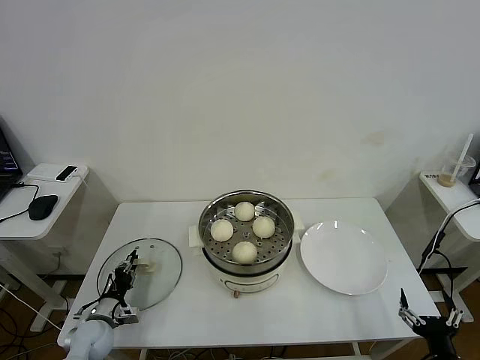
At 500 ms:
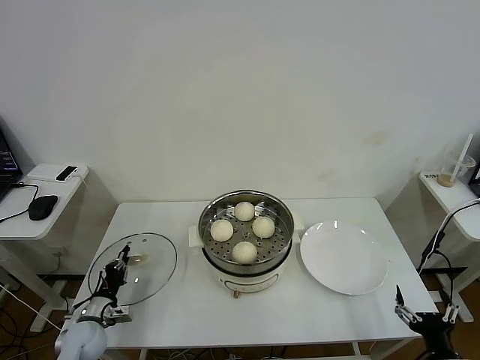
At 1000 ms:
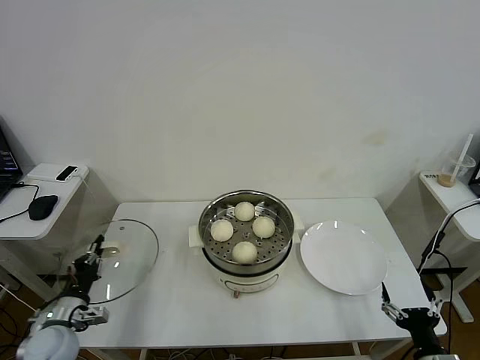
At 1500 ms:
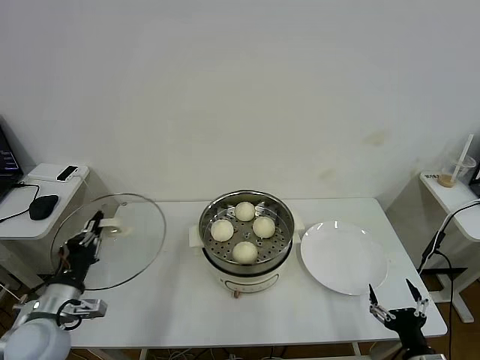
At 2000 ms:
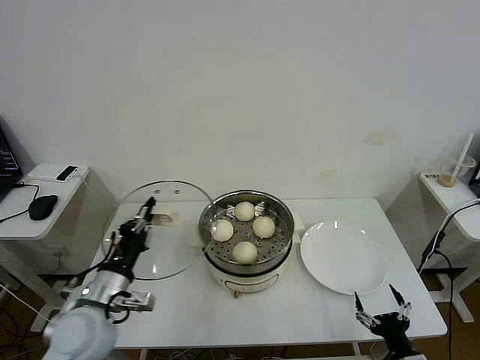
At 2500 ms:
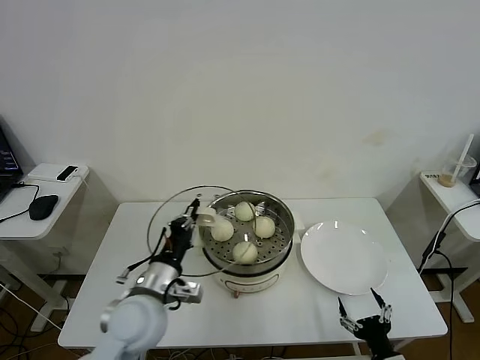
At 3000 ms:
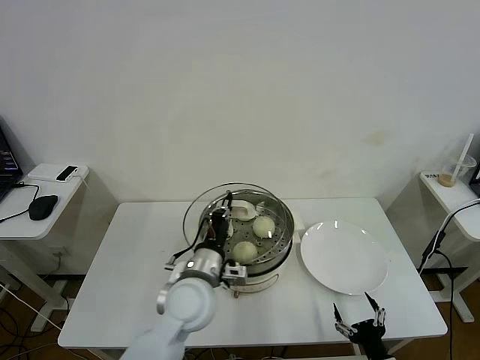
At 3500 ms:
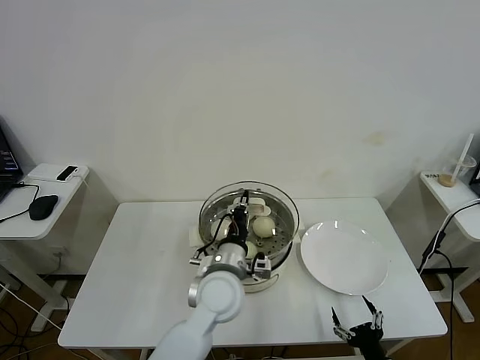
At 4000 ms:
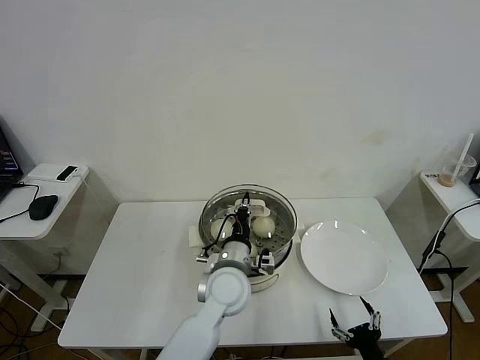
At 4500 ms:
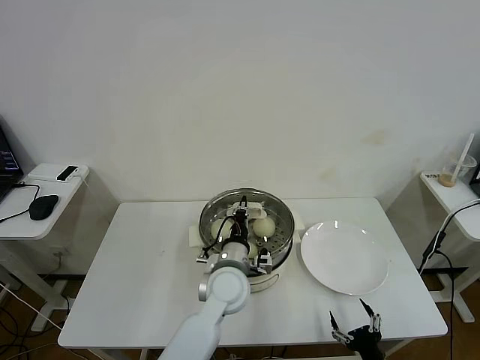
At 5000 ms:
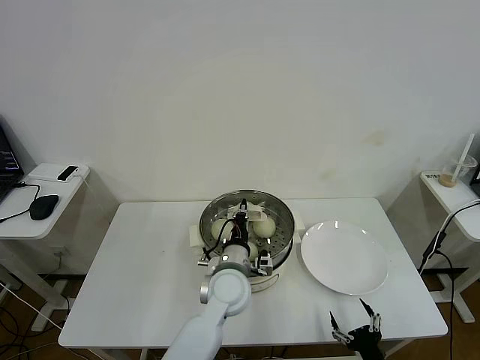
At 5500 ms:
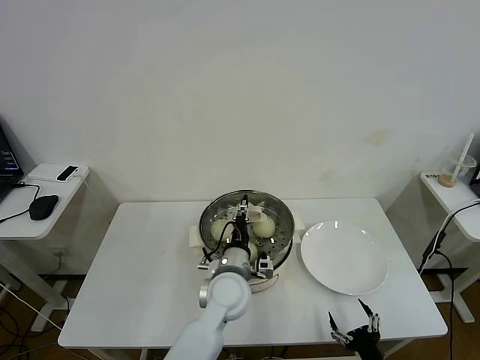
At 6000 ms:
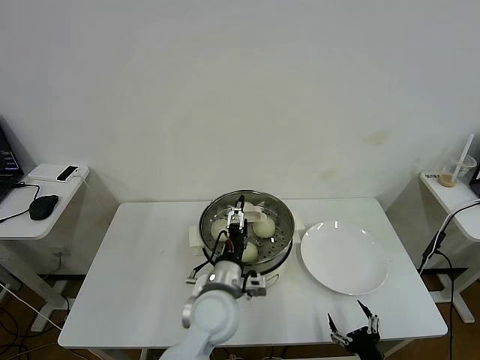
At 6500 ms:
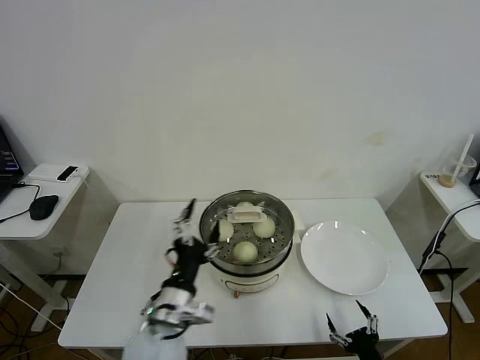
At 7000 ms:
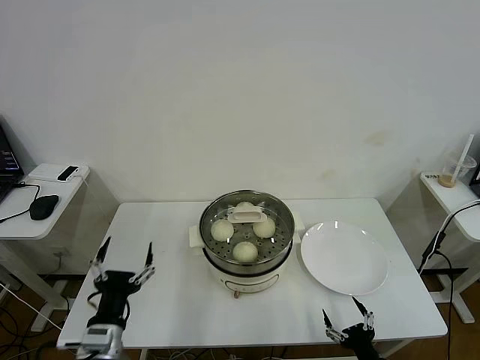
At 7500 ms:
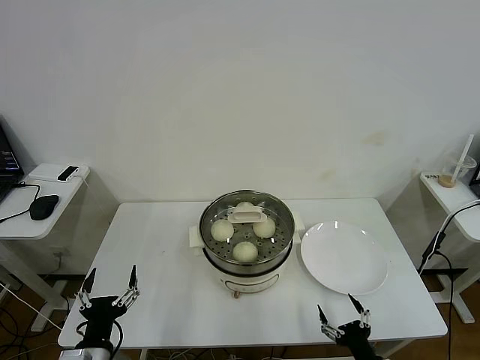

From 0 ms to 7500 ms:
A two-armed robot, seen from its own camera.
Task of the whole recording: take steamed baozi put them in steamer then cover it.
Step, from 500 ms to 6000 ms: Place the pot lid on the steamer with left gripper.
From 0 ms to 2000 ms: The left gripper travels upward and to the right by roughly 25 cm, while the right gripper changes place by some 5 cm.
From 2000 ms to 4000 ms: The left gripper travels to the right by roughly 25 cm.
From 4000 ms to 5500 ms: The left gripper opens its fingers.
From 5500 ms to 7500 ms: The left gripper shifts roughly 30 cm to the left and backward, and opens its fingers.
